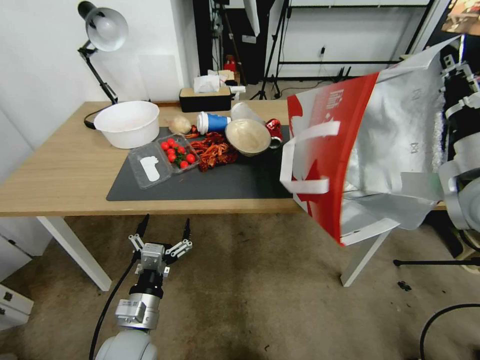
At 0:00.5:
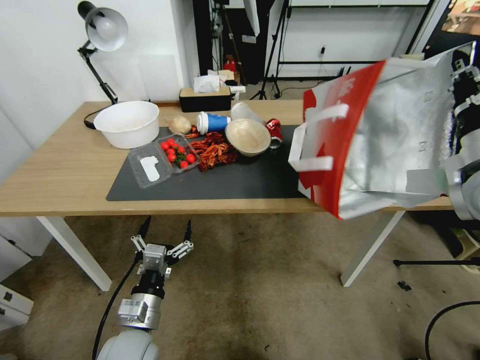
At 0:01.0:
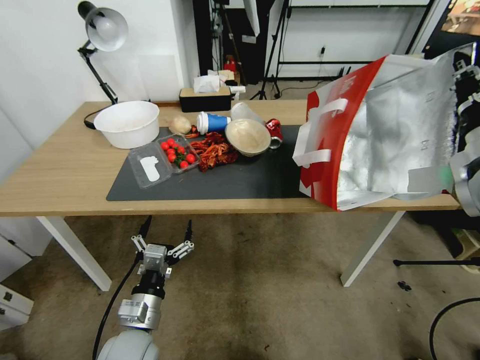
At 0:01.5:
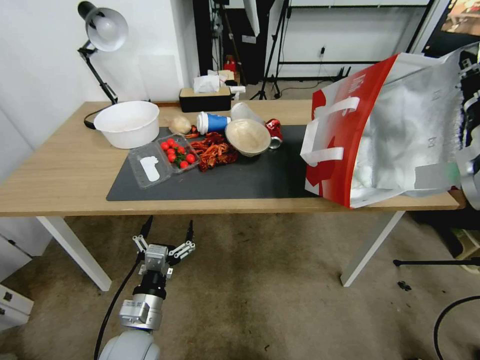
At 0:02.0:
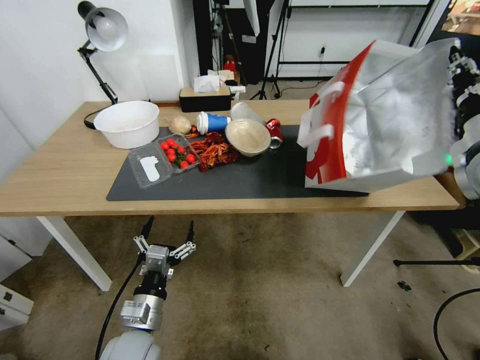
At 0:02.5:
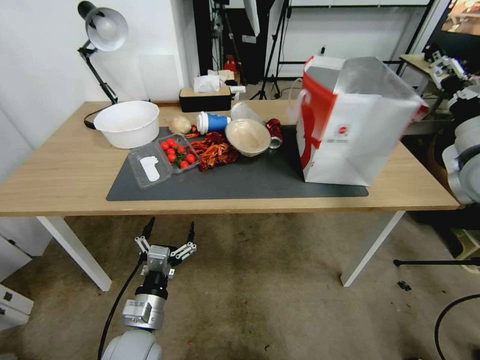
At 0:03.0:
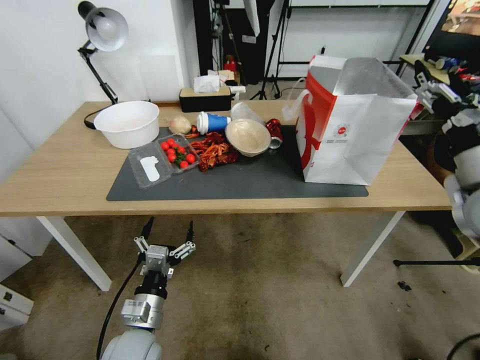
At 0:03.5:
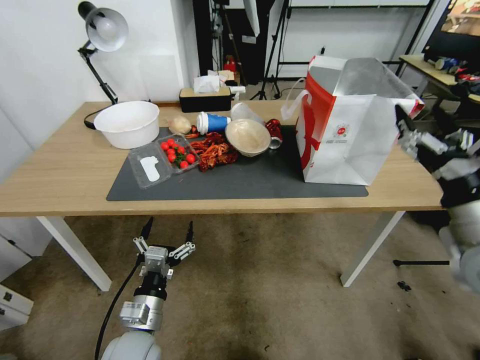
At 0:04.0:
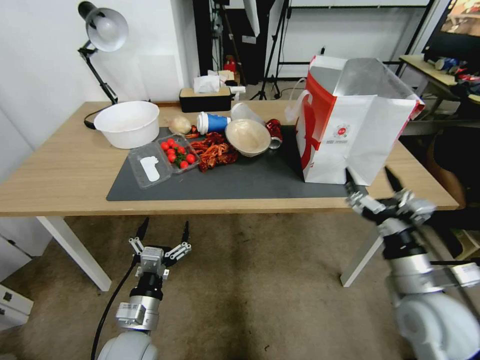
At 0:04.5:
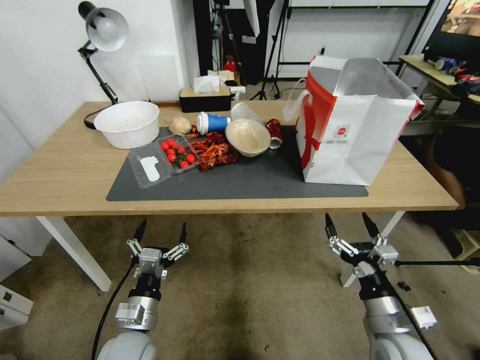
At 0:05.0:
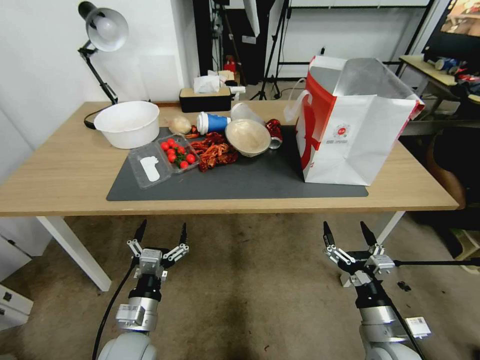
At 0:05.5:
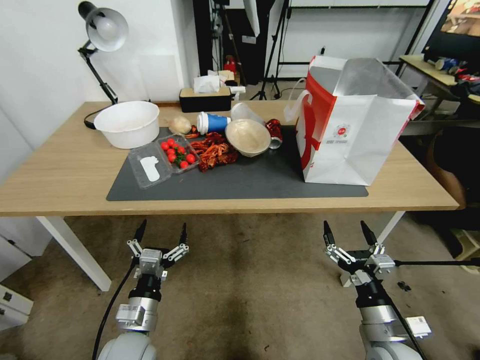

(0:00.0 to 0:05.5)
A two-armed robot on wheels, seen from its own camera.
Task of the whole recording: Pick up the food delivery bag from the floor and place it on the table.
0:00.0 - 0:02.0: The right gripper shifts about 5 cm forward.
0:02.0 - 0:03.5: The right gripper shifts roughly 15 cm backward and downward, and opens up.
0:03.5 - 0:05.5: The right gripper shifts about 25 cm downward, to the left and backward.
